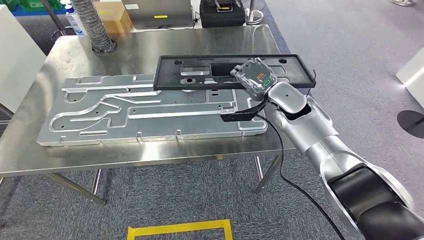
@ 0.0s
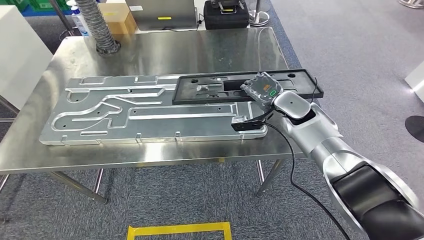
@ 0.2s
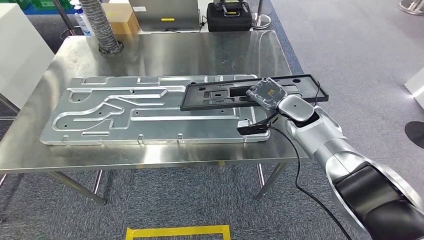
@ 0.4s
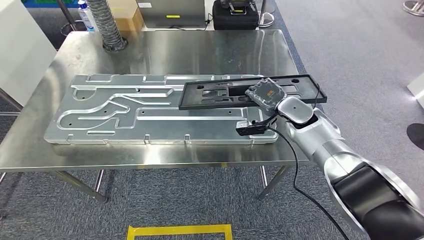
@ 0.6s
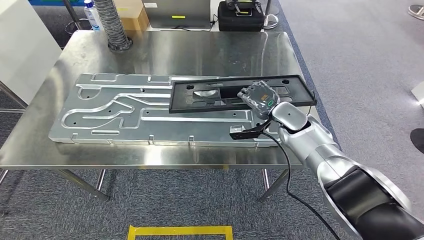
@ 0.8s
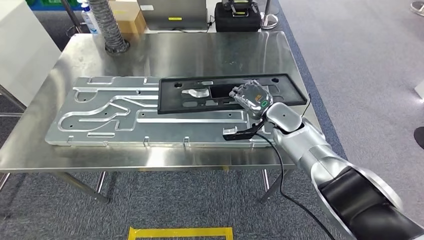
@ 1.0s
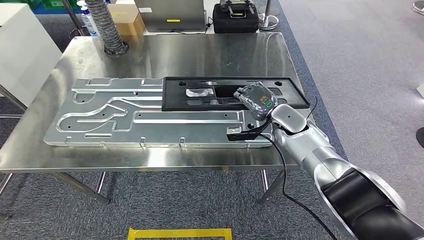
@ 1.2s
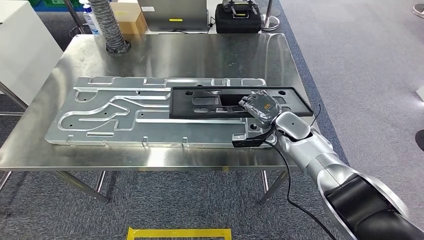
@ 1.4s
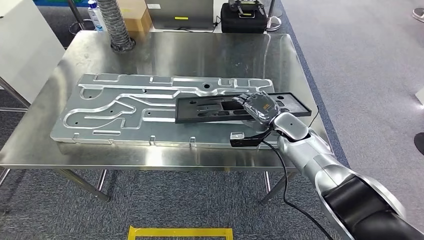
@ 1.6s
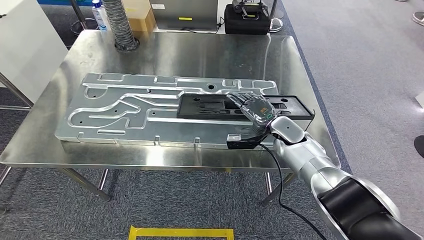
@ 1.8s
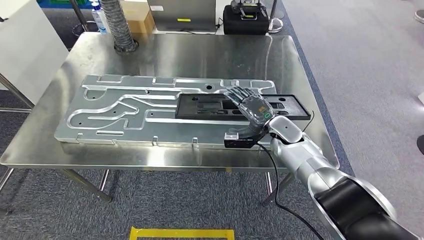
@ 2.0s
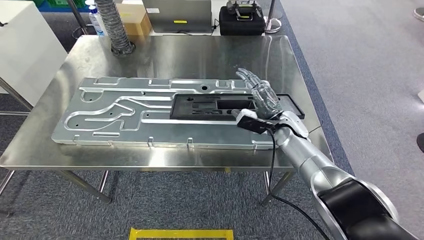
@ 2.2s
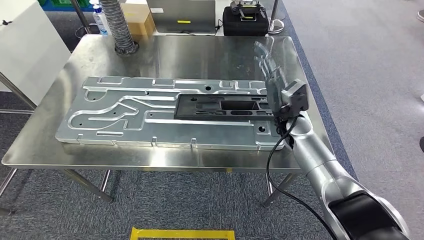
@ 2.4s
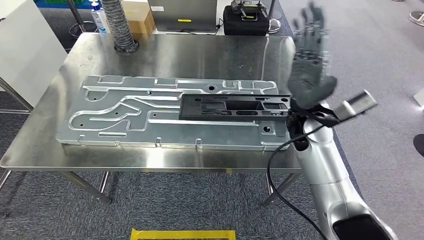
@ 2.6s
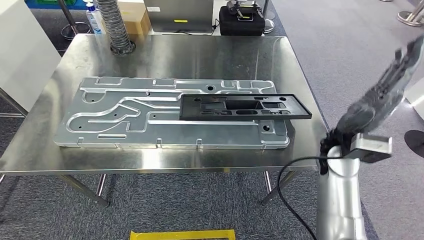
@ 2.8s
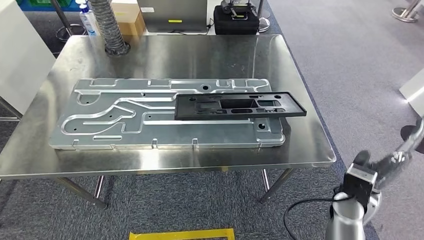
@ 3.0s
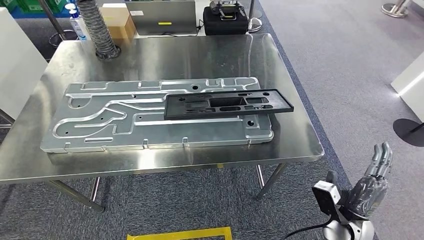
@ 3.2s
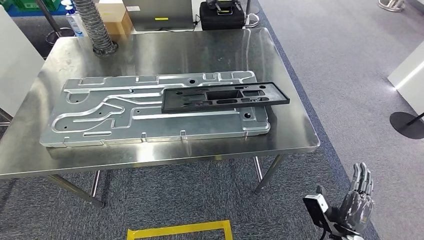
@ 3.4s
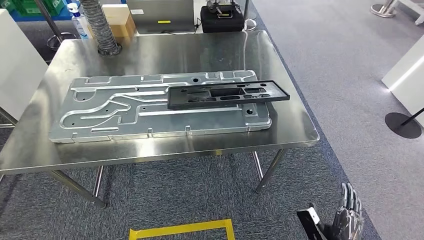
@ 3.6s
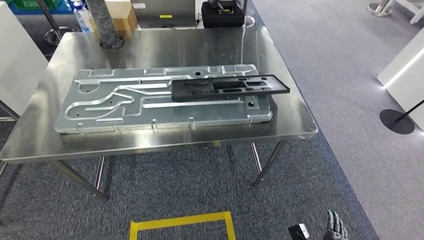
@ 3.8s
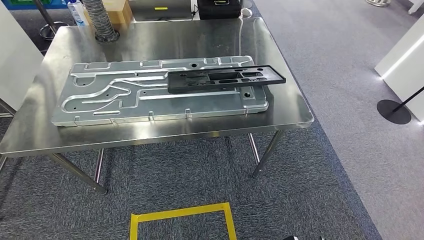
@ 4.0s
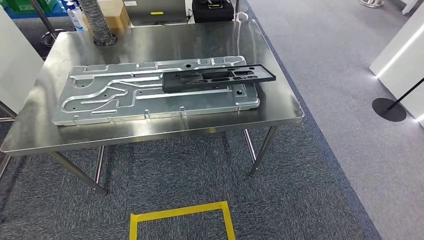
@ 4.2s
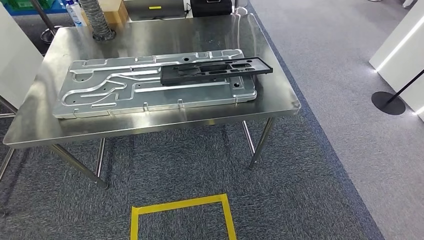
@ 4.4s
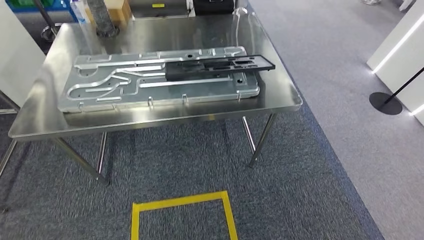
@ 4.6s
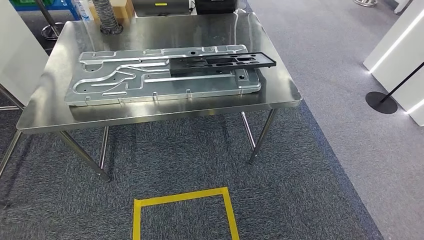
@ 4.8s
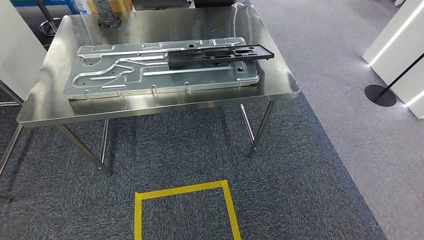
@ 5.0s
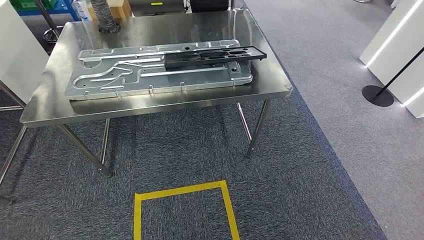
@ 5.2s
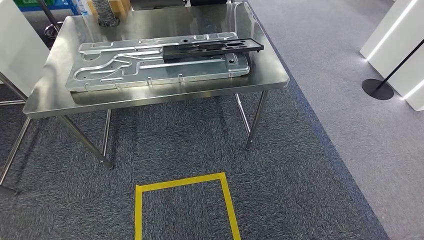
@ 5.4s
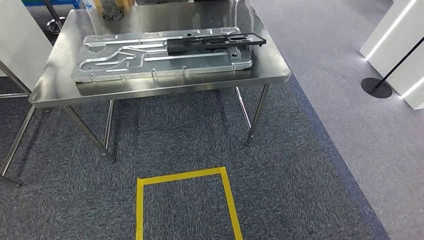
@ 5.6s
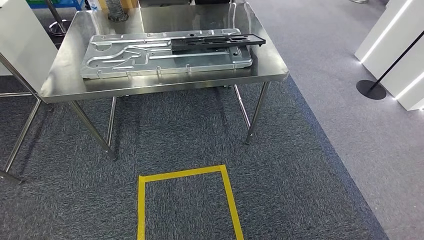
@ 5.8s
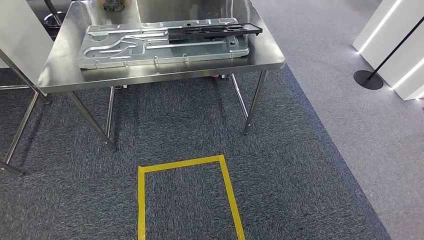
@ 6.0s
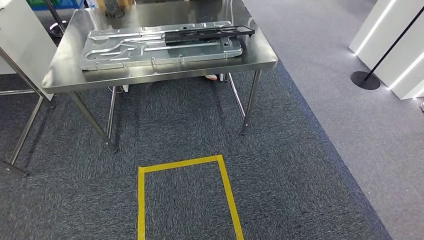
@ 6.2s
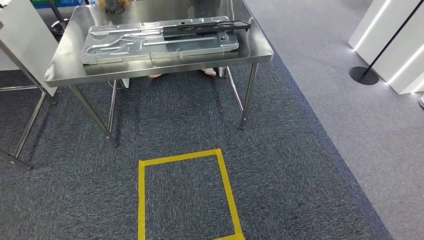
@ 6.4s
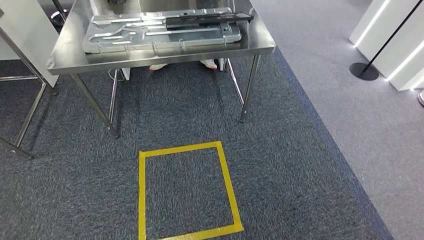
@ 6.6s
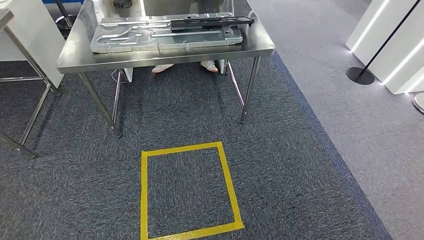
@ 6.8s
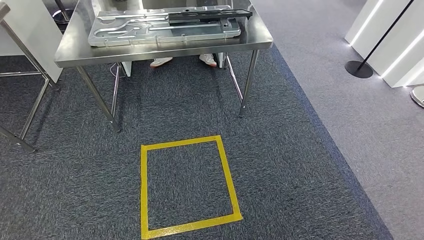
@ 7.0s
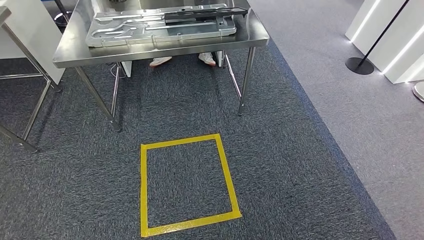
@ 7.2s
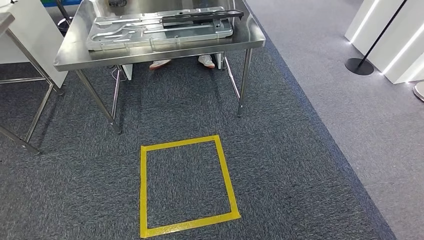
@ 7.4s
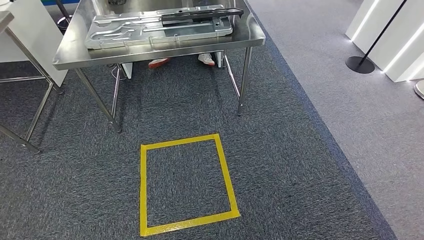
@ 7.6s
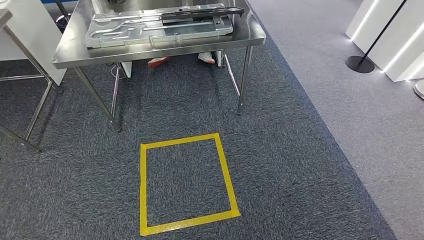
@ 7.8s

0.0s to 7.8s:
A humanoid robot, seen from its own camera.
Step, 0.0s to 2.6s: Insert the large material into the corresponding slot on the workbench.
Step, 4.6s to 7.6s: Return to the initial position at the shelf.

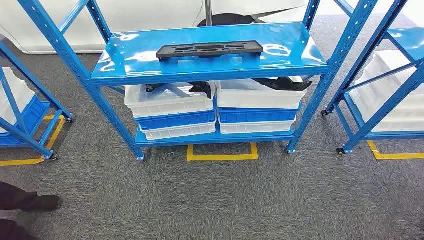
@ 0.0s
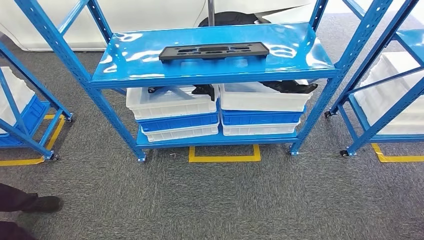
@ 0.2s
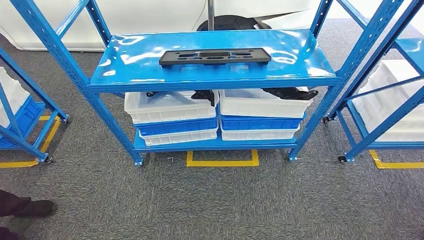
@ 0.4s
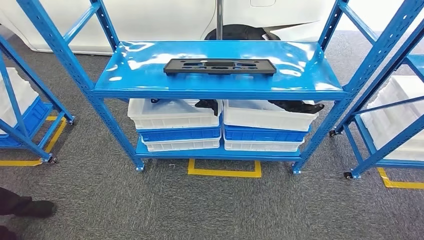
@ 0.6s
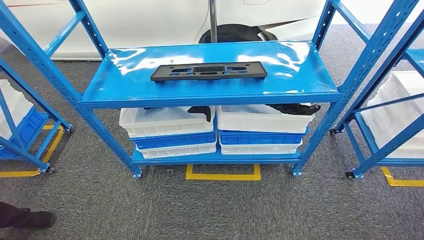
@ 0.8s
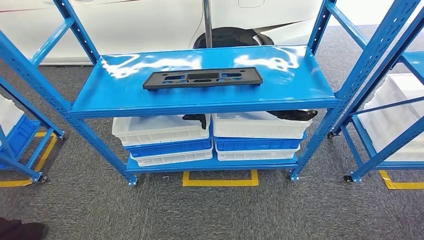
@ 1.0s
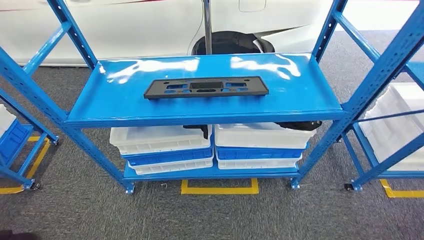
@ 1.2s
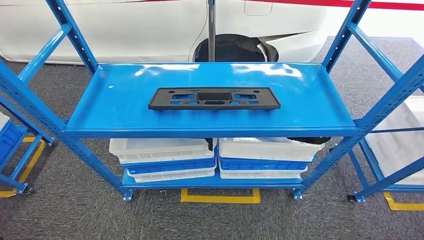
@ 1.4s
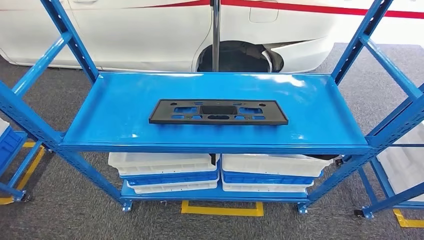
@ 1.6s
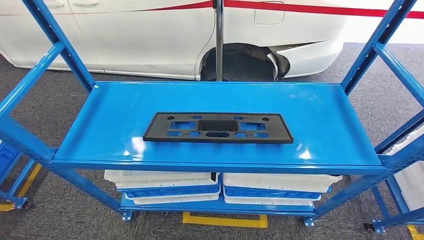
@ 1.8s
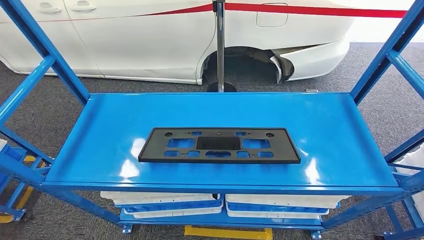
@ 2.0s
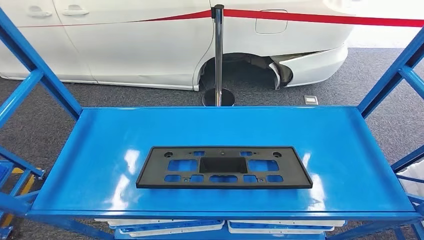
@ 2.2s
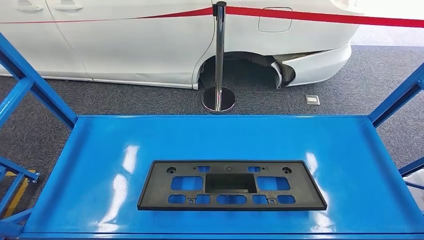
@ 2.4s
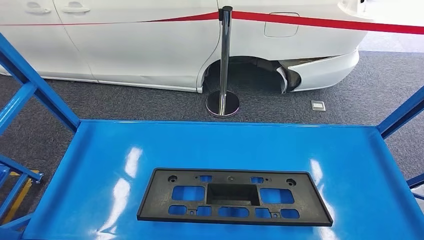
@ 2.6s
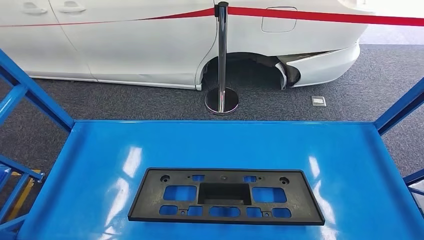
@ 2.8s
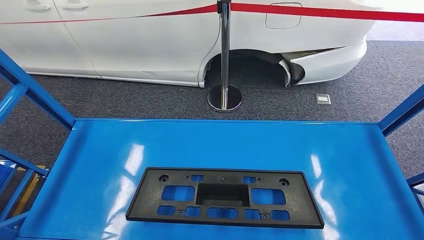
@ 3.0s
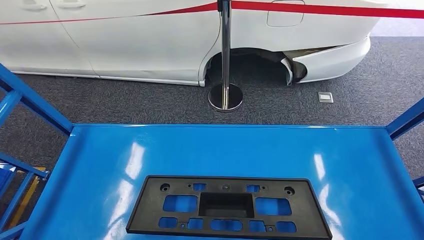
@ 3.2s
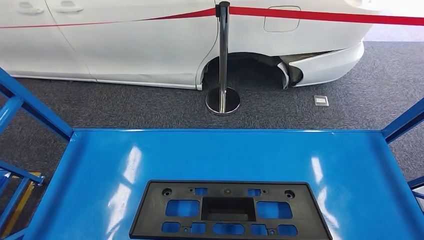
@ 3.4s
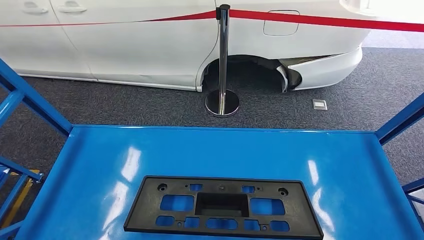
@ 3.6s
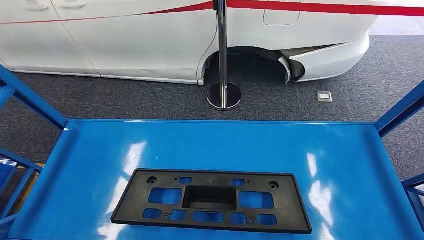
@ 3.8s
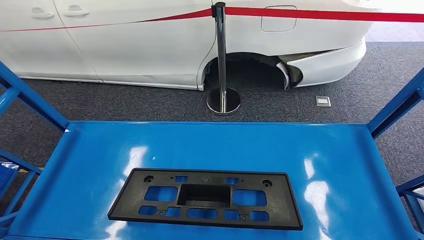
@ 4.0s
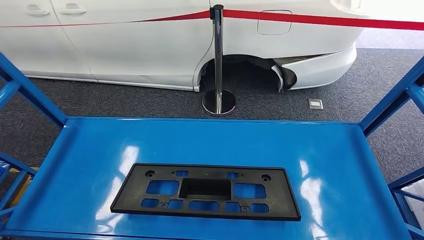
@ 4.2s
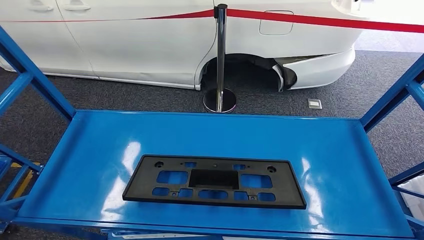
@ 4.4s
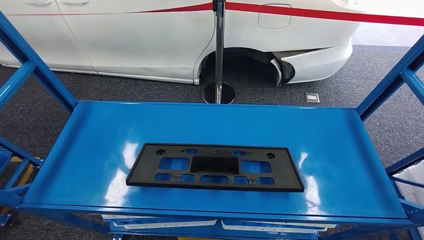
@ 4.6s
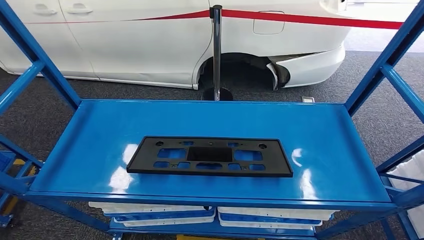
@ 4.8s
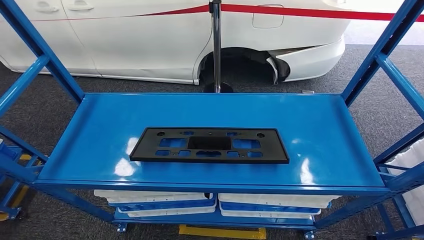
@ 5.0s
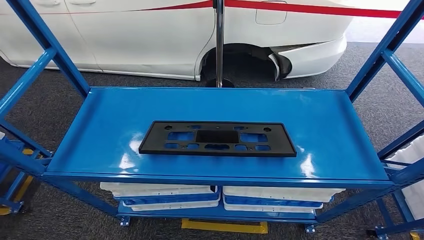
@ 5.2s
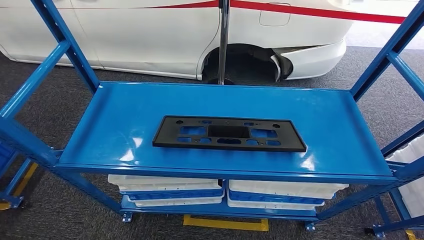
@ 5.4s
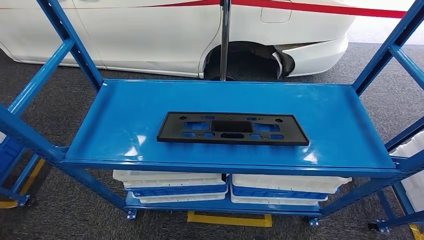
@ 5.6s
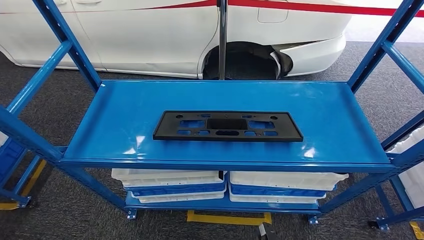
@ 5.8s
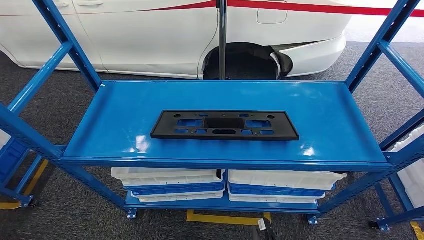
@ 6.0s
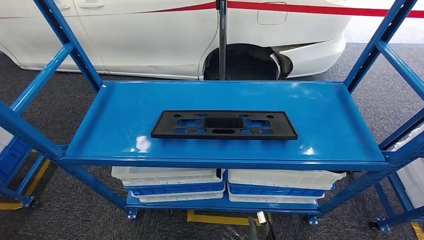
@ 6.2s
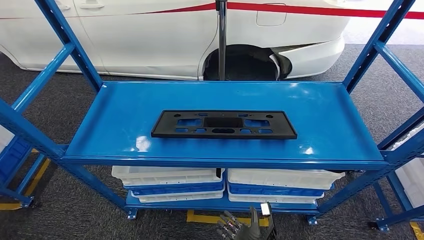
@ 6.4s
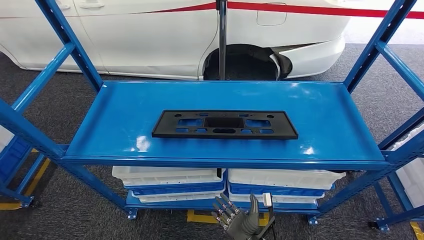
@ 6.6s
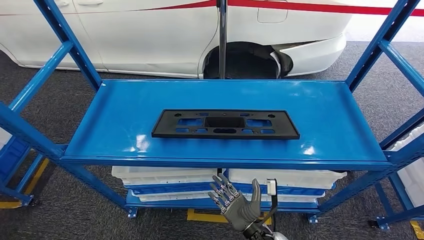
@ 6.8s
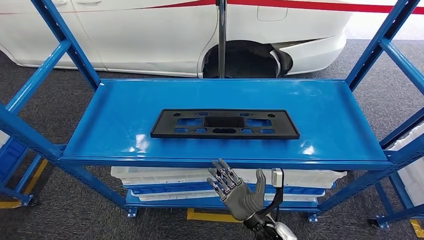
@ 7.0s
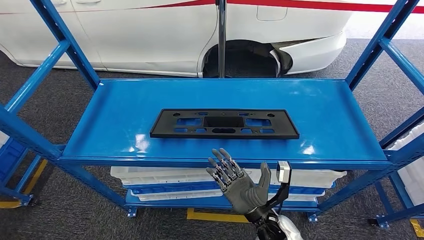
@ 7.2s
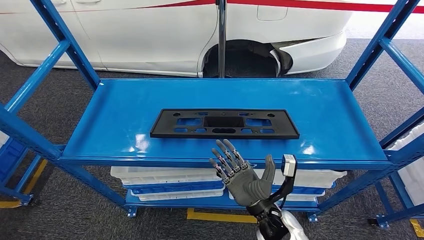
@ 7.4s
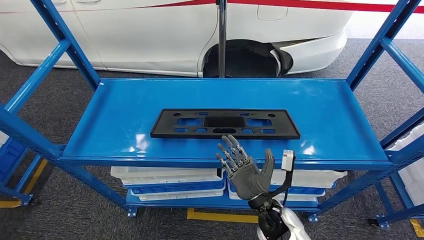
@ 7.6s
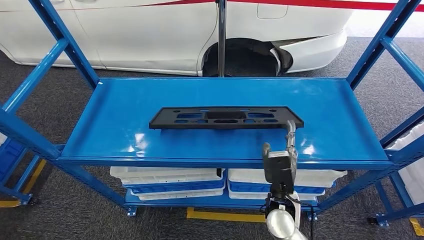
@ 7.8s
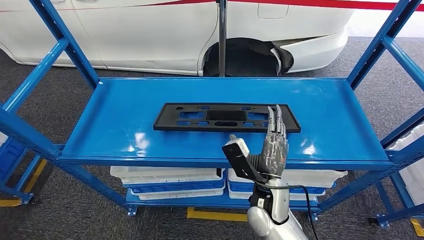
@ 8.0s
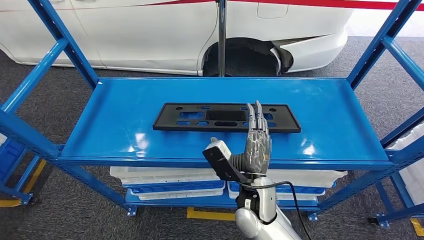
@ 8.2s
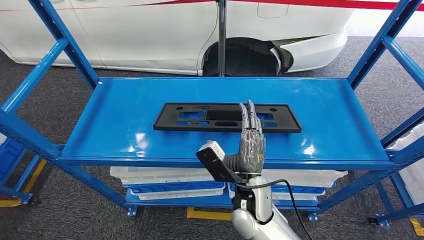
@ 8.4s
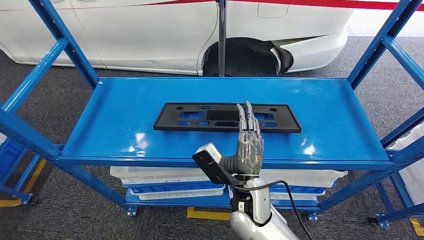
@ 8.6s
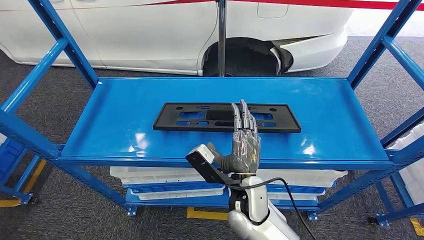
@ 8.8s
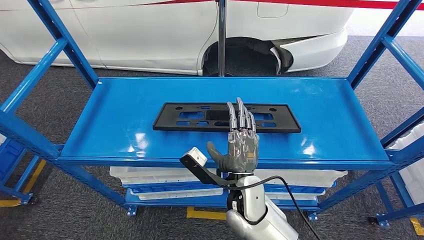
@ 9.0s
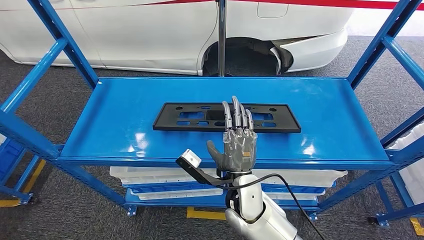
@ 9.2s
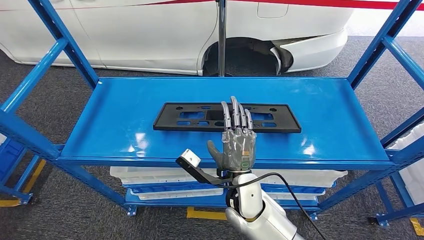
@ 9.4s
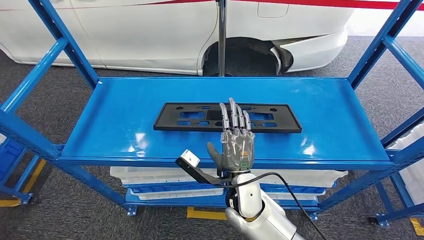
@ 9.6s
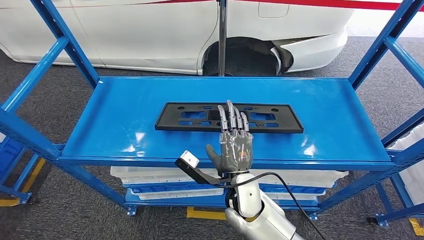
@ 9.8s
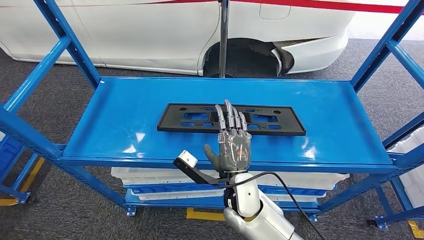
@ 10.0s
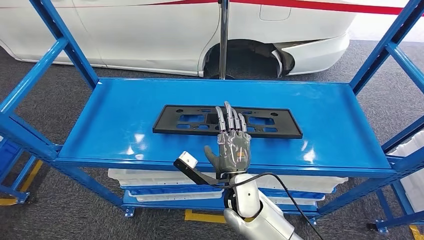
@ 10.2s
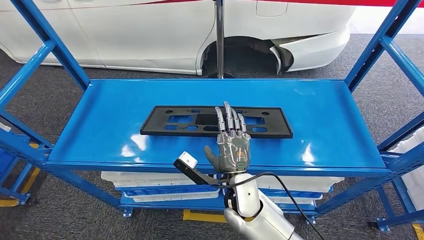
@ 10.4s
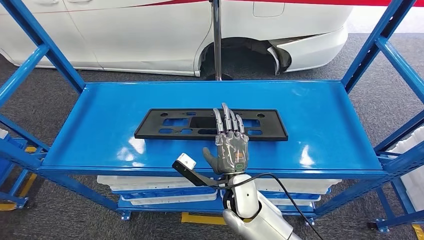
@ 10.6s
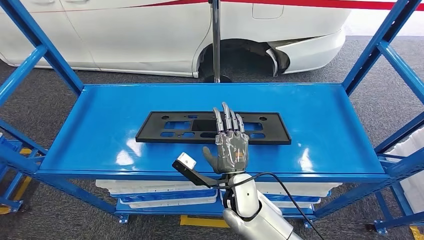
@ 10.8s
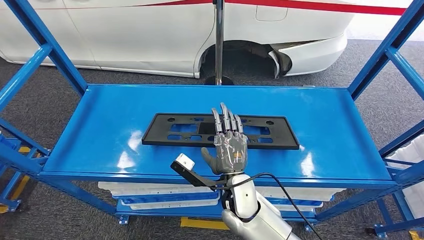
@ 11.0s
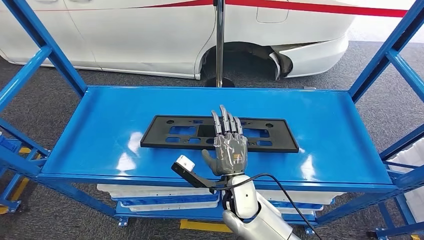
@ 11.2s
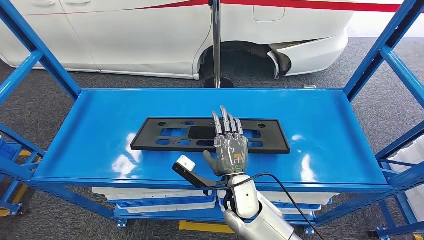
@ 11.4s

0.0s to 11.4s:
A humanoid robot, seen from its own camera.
7.2s to 8.6s: The right hand heads upward and to the left, covering roughly 10 cm.
